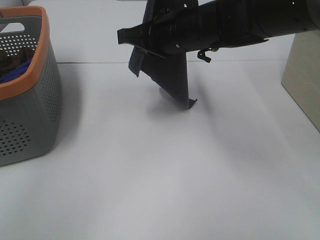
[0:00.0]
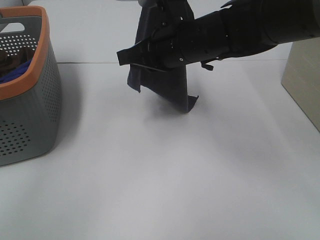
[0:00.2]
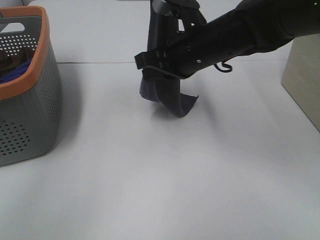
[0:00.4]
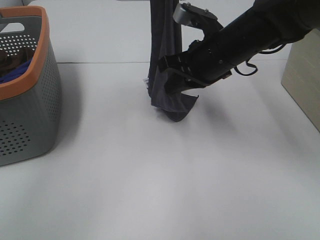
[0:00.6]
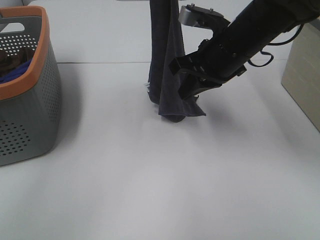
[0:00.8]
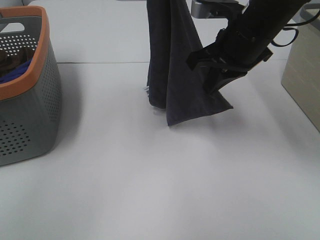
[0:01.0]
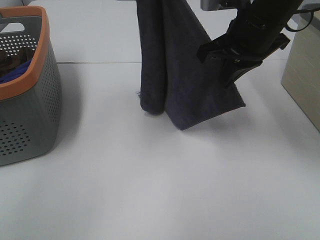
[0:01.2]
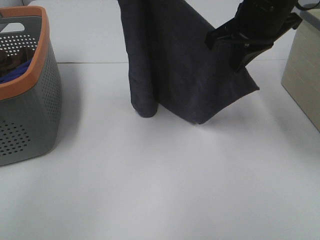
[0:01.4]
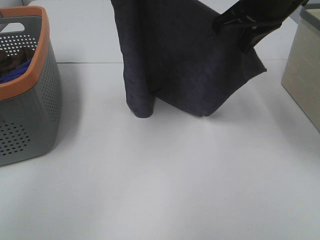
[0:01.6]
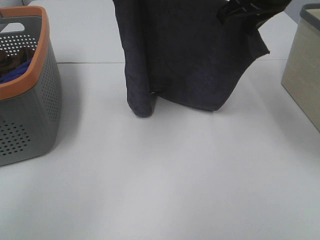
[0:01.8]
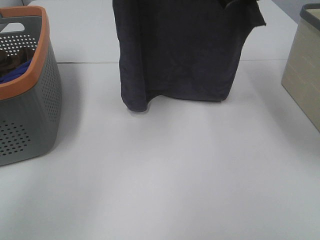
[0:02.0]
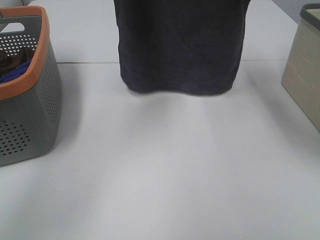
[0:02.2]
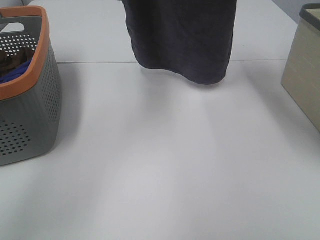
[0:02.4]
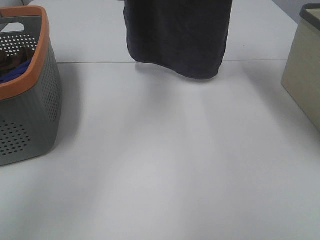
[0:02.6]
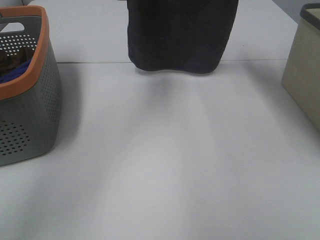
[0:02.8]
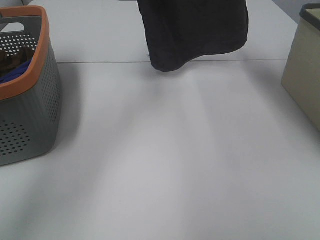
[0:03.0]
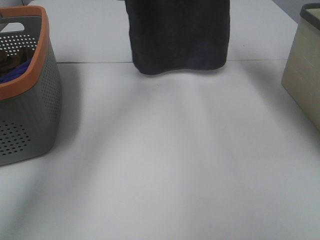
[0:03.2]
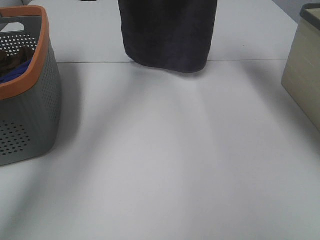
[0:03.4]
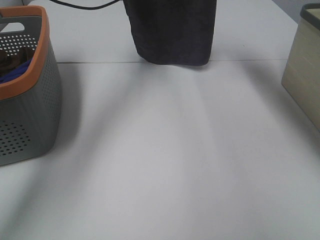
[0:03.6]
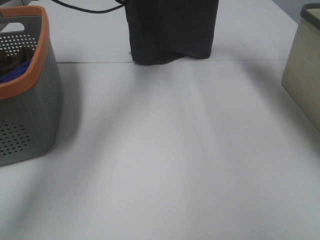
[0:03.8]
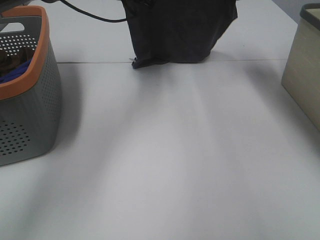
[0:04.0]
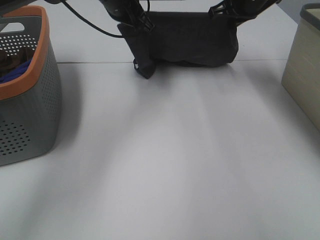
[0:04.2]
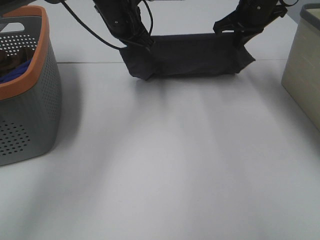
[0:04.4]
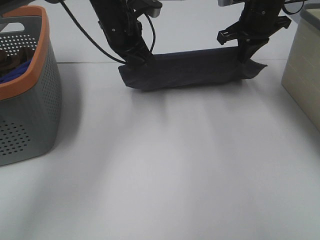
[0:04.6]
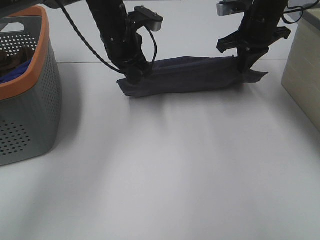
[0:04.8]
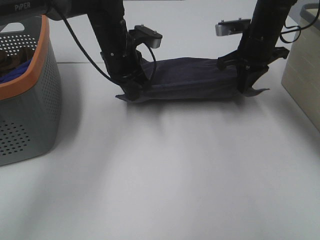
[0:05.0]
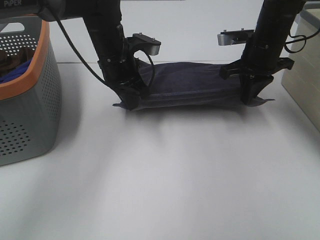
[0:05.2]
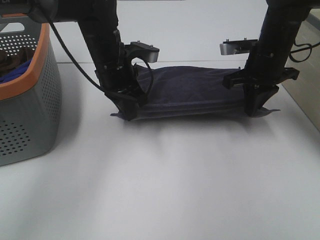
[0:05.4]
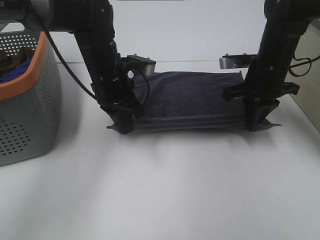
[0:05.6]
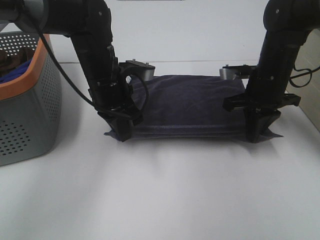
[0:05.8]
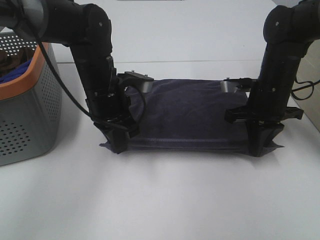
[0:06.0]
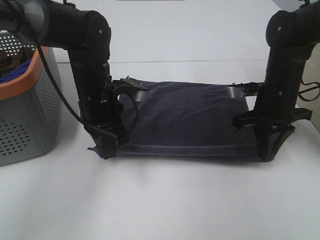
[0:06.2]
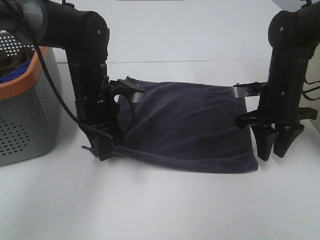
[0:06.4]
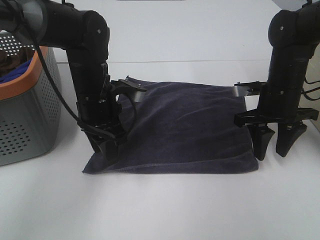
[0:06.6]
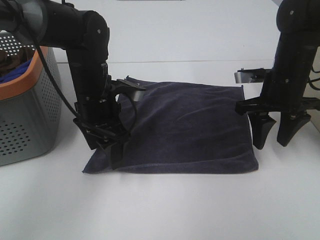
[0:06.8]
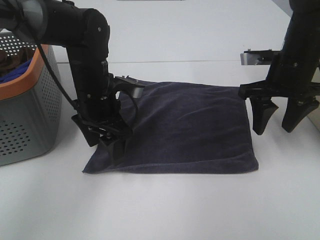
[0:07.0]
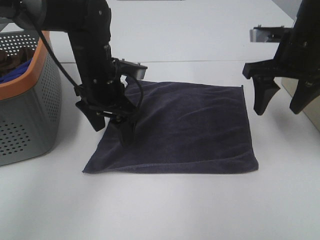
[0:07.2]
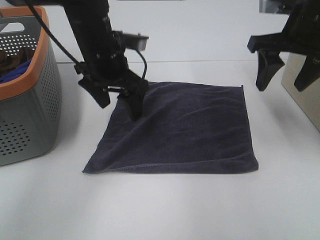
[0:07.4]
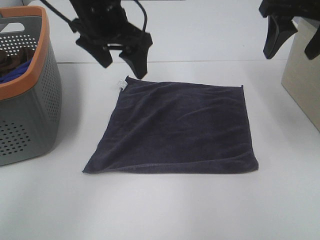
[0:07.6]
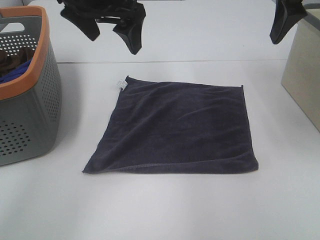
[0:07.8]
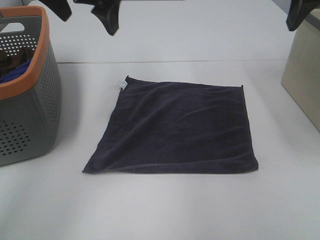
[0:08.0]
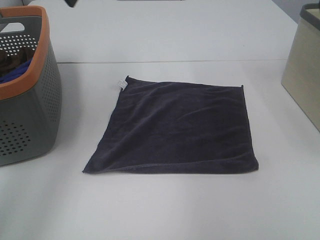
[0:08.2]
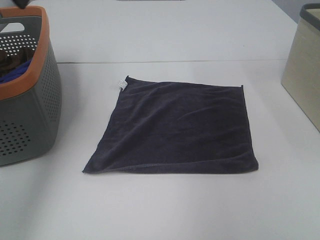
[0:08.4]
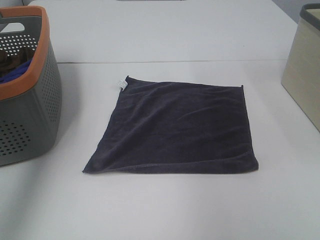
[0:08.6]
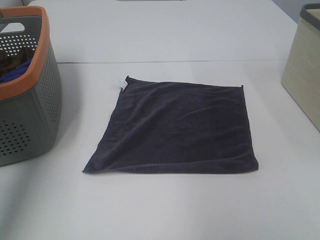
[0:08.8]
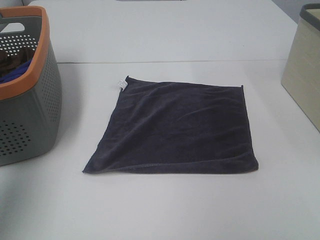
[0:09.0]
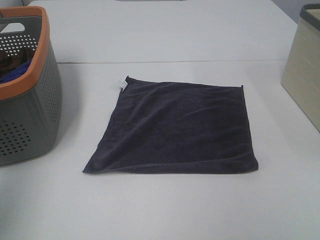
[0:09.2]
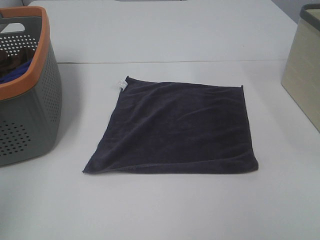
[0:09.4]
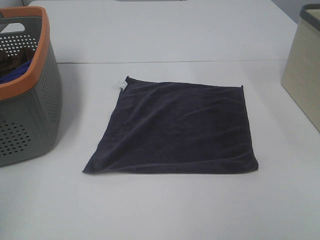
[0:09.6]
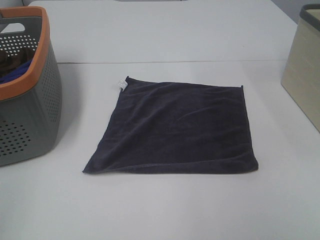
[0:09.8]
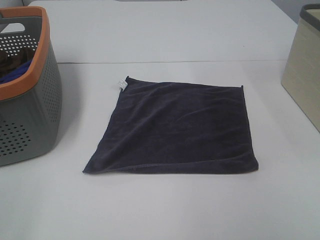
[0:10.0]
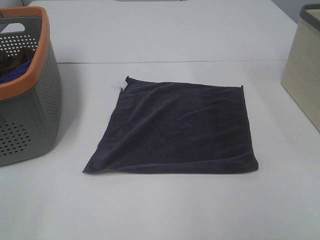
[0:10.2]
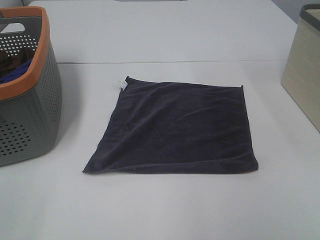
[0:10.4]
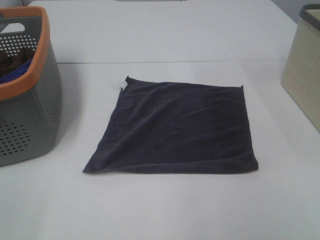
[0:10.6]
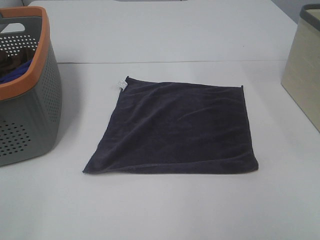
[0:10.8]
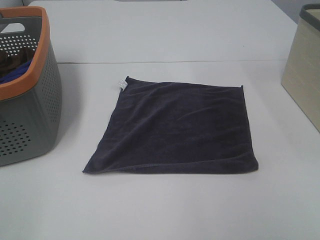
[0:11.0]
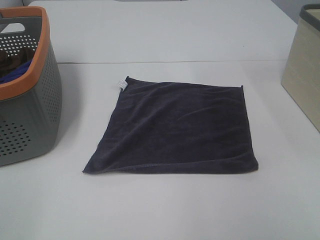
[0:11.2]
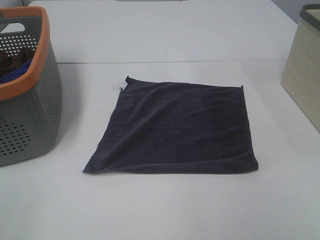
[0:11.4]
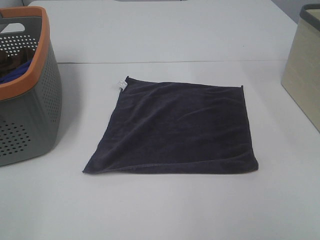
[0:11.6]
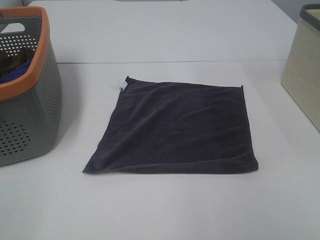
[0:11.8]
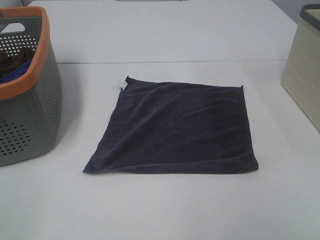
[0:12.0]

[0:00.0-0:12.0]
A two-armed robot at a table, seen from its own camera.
Task of the whole recording: Remove the towel and place it.
Step, 0:00.0 to 0:01.8: Right hand: spread the grey towel flat on the table.
Step, 0:00.0 to 0:02.4: Left hand: spread the grey towel flat on the table.
0:00.0 to 0:01.6: The right gripper is displaced to the right and upward by some 15 cm.
0:01.6 to 0:03.0: The grippers both shift forward by some 10 cm.
0:03.0 to 0:04.4: The two grippers go roughly 10 cm downward.
0:04.4 to 0:06.0: Both grippers travel together backward and downward, roughly 15 cm.
0:06.0 to 0:07.6: Both grippers move upward, approximately 15 cm. The right gripper opens. The left gripper opens.
0:07.6 to 0:09.0: The right gripper travels backward by roughly 20 cm, while the left gripper moves to the left and backward, approximately 30 cm.
0:09.0 to 0:10.4: The left gripper shifts about 20 cm backward and downward.

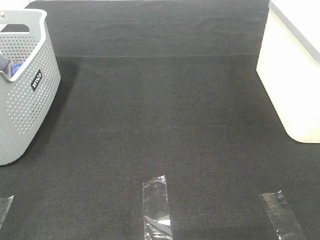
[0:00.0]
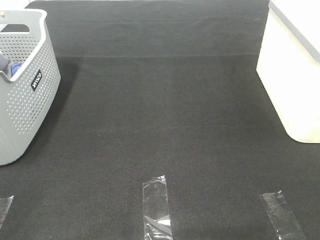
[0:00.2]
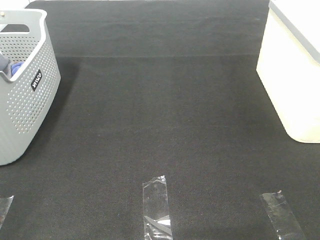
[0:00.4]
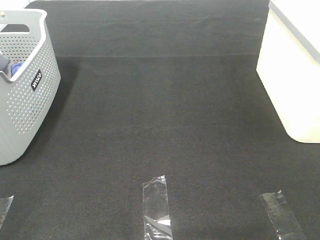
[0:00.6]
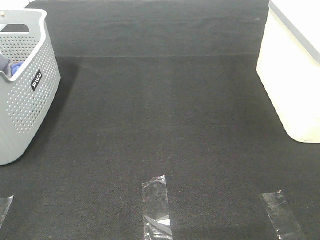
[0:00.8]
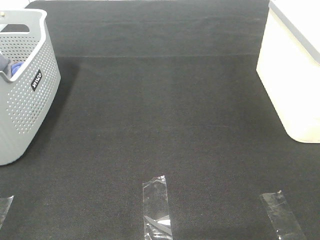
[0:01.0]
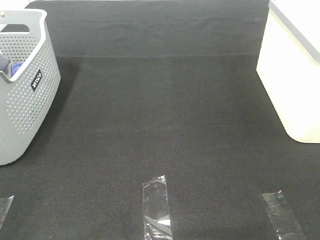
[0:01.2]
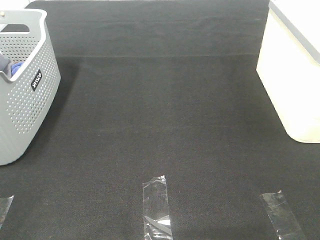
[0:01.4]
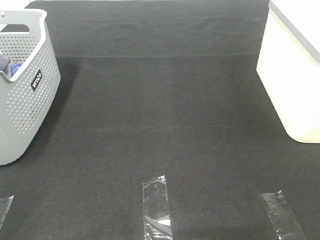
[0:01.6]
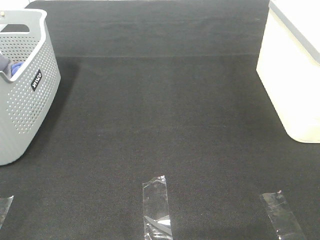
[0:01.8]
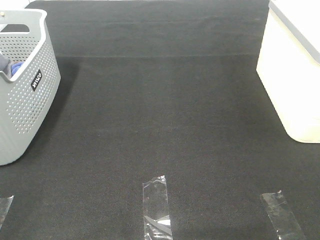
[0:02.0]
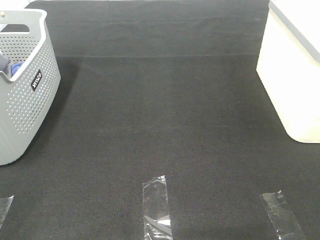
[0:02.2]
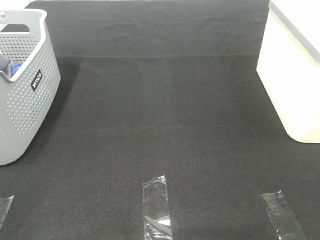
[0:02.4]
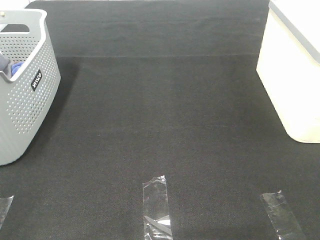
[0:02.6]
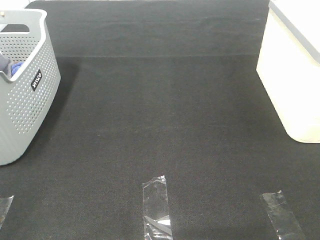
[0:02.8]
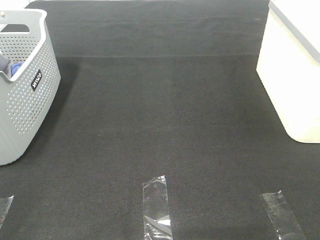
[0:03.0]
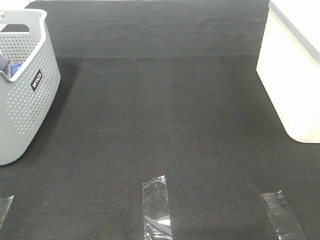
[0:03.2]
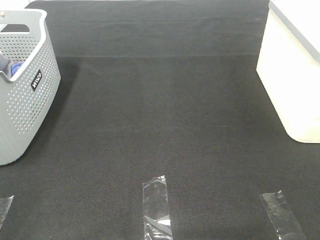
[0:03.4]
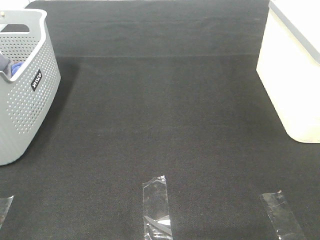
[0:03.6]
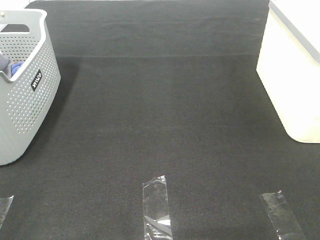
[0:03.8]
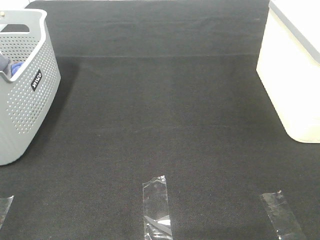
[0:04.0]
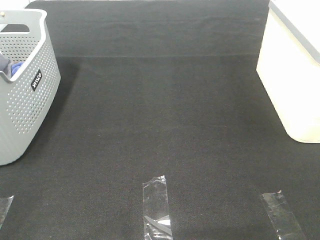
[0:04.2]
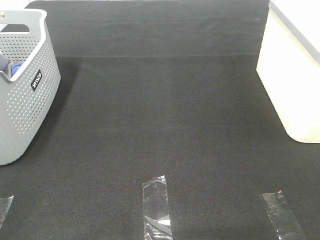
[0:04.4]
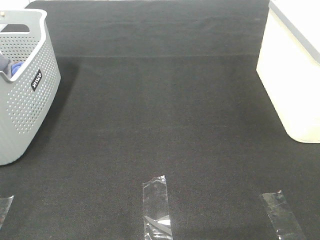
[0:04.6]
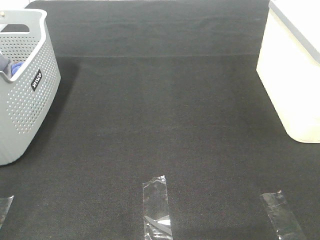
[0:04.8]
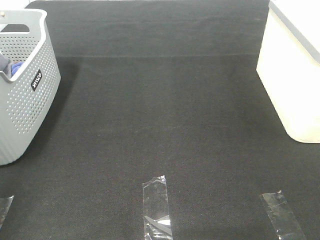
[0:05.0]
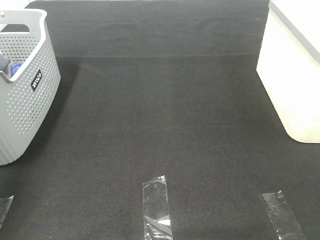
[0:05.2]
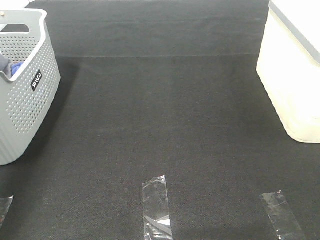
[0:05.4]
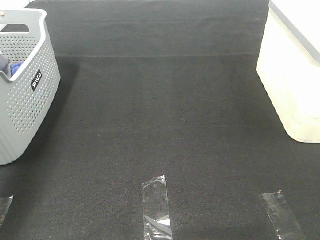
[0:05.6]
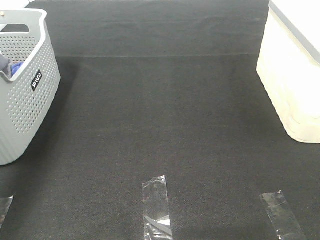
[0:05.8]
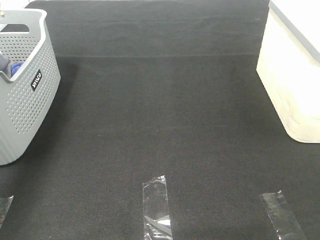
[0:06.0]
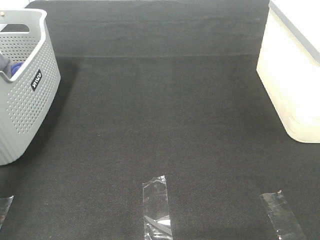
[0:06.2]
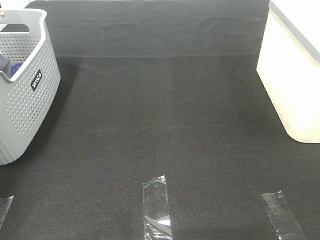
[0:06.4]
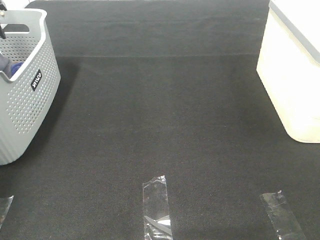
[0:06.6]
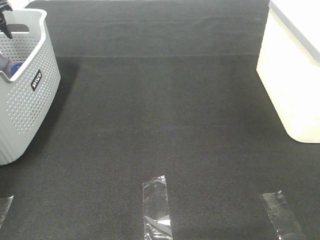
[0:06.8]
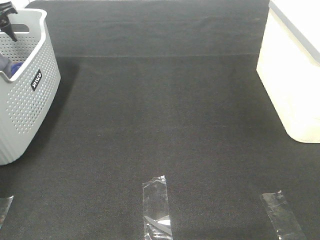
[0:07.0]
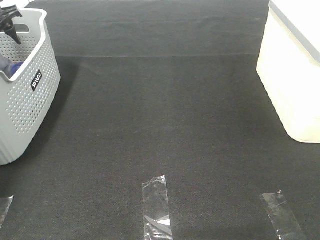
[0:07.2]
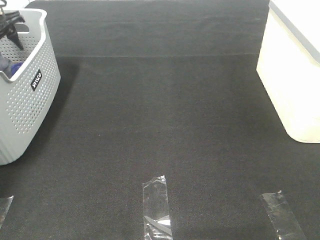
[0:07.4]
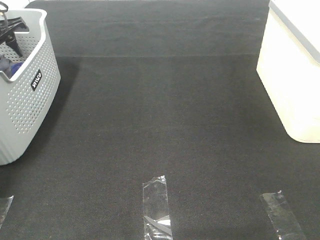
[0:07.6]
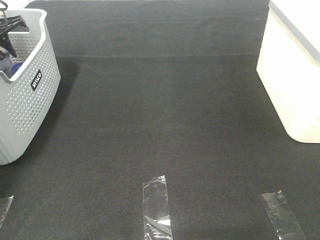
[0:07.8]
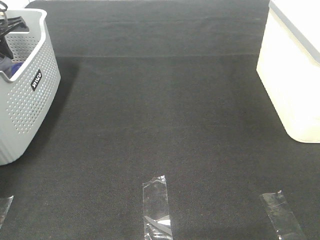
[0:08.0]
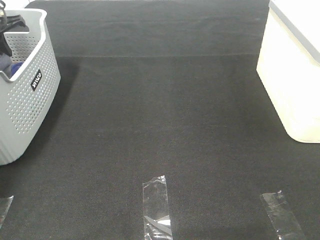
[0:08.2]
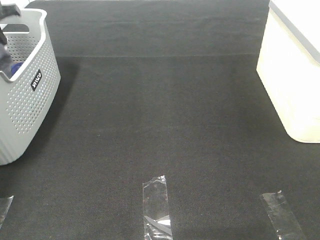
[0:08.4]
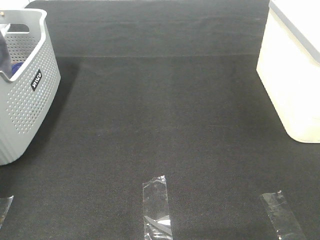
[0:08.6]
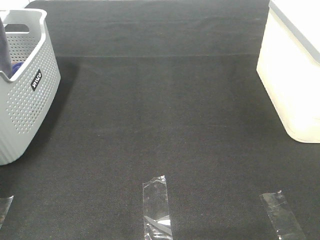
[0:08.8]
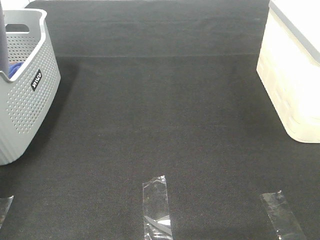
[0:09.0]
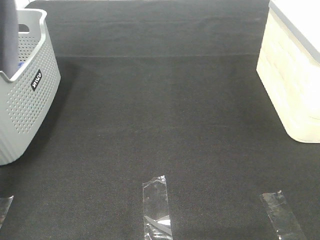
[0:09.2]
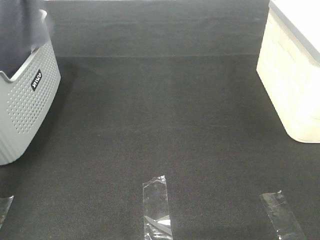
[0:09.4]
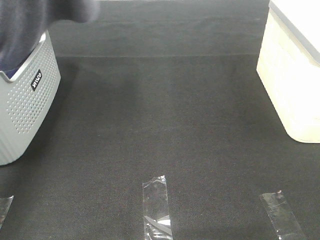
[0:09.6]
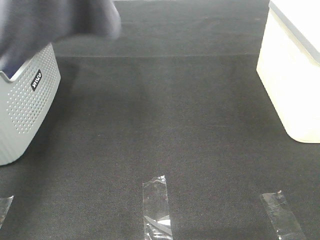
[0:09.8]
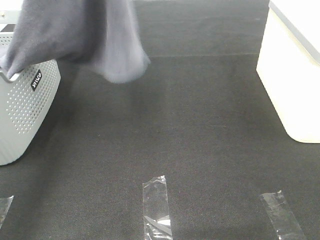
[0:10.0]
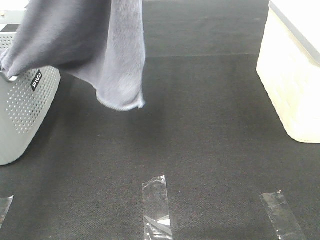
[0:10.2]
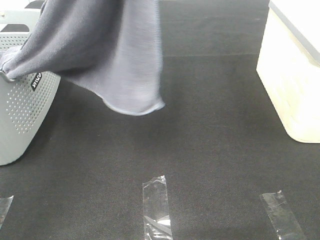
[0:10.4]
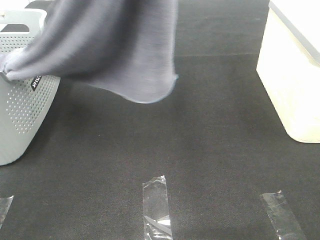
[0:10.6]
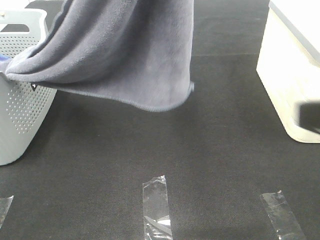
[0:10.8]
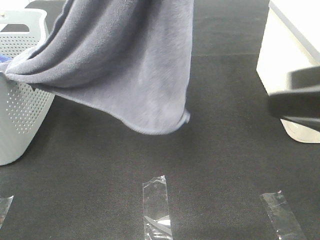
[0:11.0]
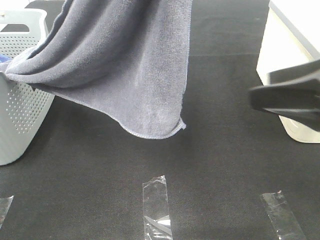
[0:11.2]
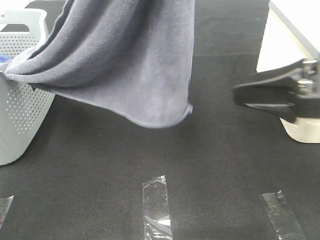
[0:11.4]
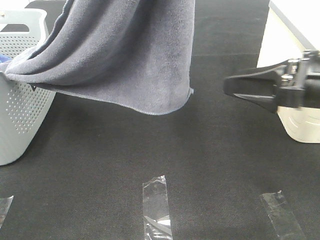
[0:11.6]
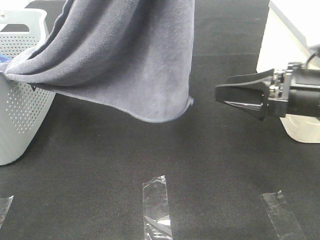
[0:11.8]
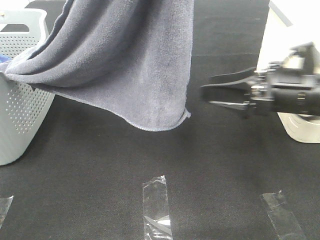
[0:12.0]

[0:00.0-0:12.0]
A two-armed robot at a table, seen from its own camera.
Task of the whole recording: Remove the towel and place it.
0:00.0 to 0:03.0: Both grippers stay put.
0:04.4 to 0:06.0: The left gripper goes about 40 cm forward.
0:06.0 to 0:07.6: The left gripper travels forward, downward and to the left by roughly 15 cm.
0:07.6 to 0:09.0: The left gripper heads upward, covering about 20 cm, and closes its fingers.
0:09.0 to 0:10.4: The left gripper is displaced to the right, backward and upward by some 25 cm.
0:10.4 to 0:12.0: The right gripper travels forward and downward by some 25 cm.
